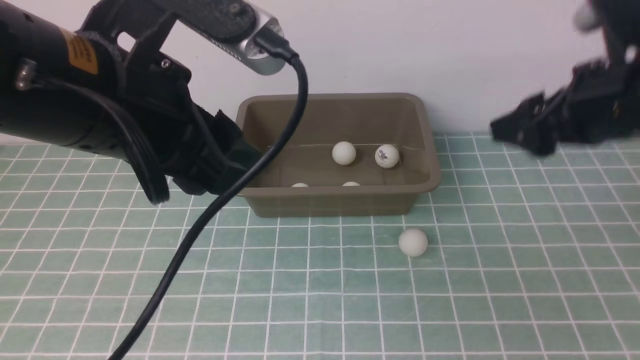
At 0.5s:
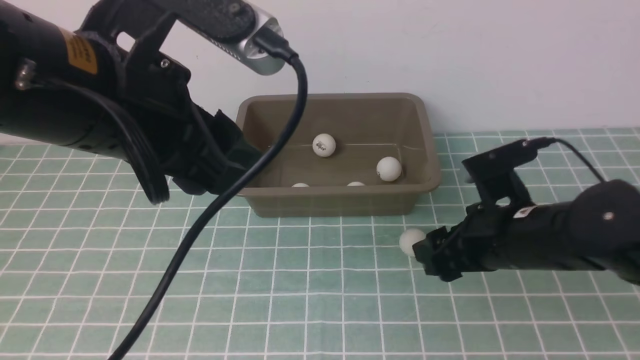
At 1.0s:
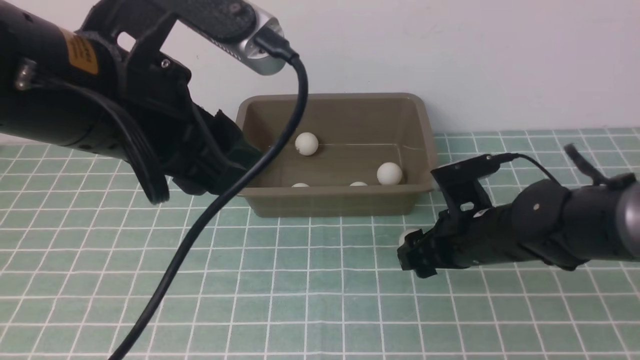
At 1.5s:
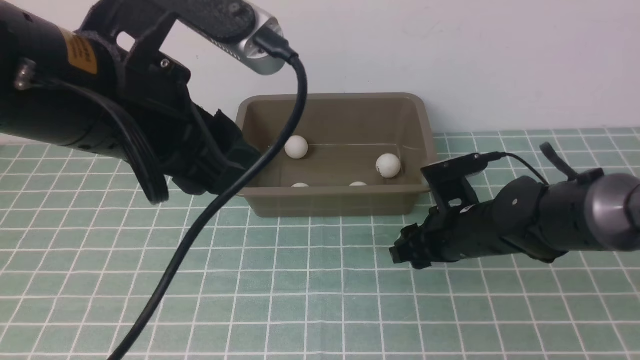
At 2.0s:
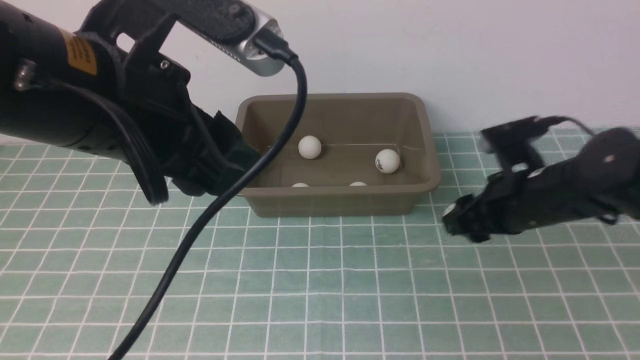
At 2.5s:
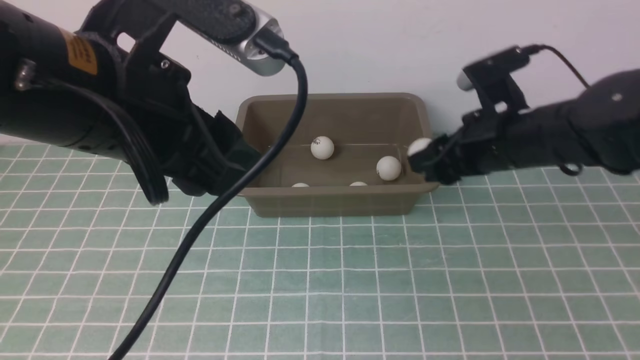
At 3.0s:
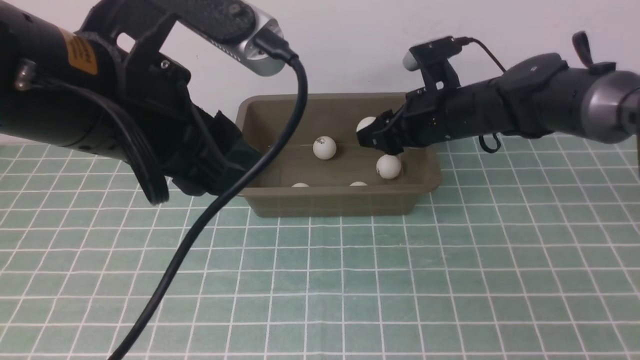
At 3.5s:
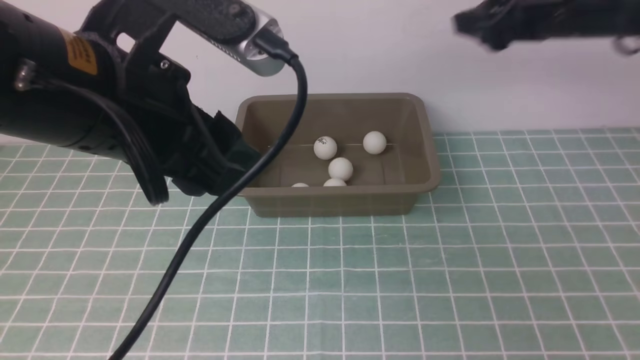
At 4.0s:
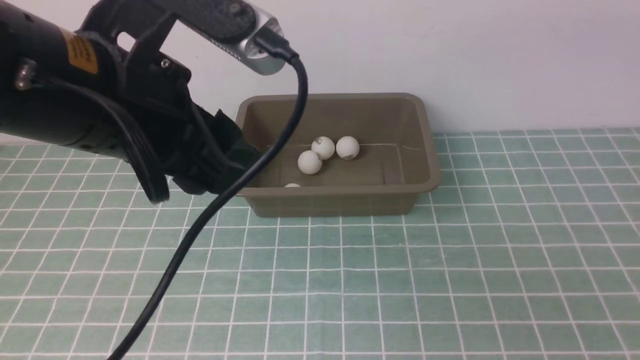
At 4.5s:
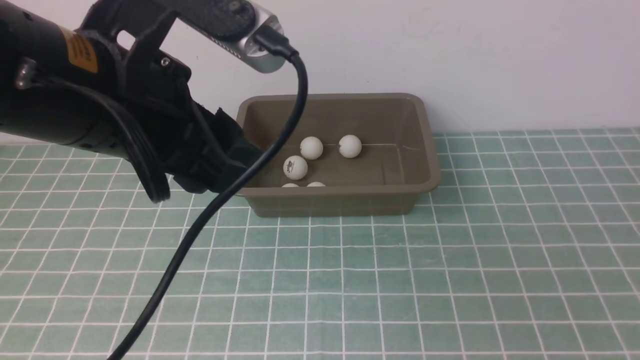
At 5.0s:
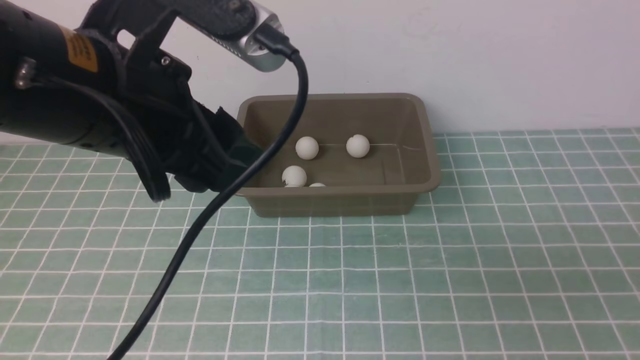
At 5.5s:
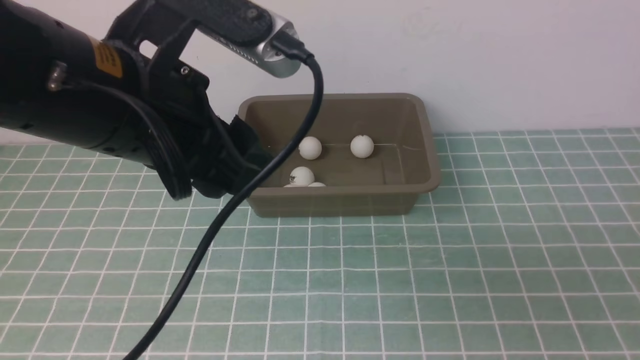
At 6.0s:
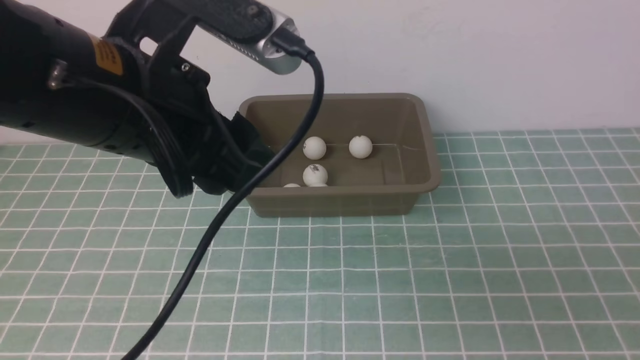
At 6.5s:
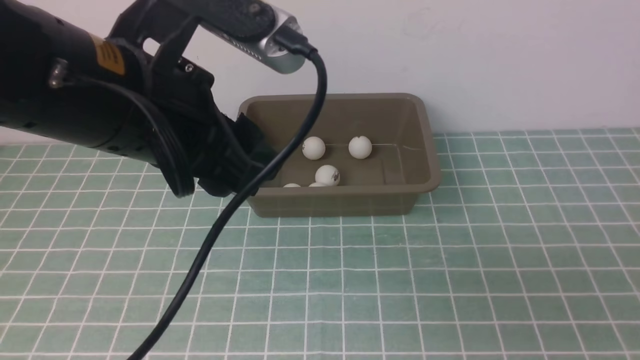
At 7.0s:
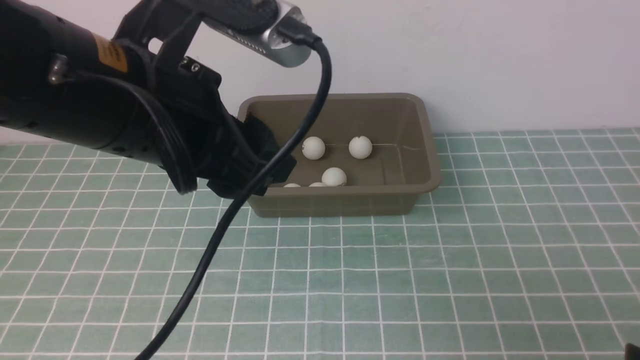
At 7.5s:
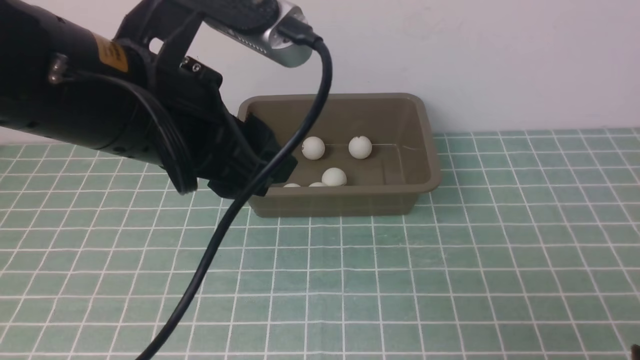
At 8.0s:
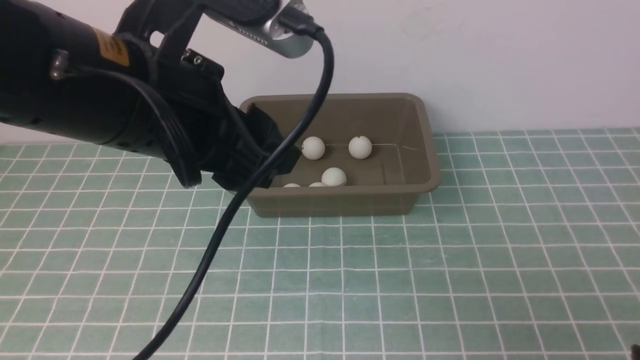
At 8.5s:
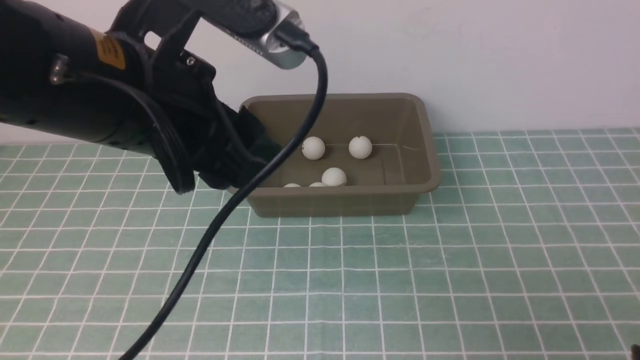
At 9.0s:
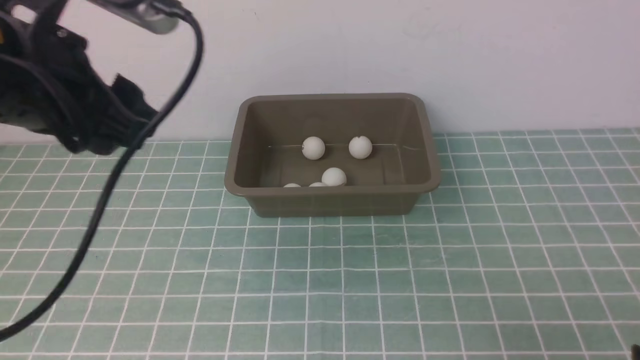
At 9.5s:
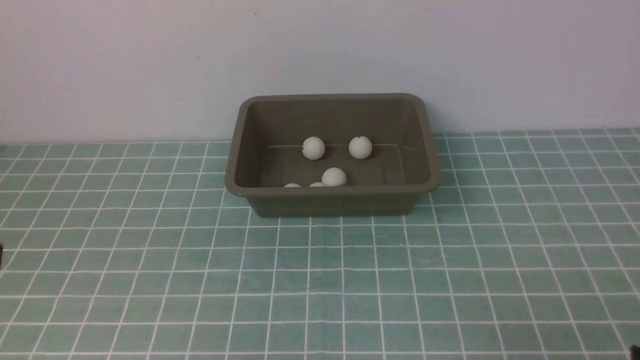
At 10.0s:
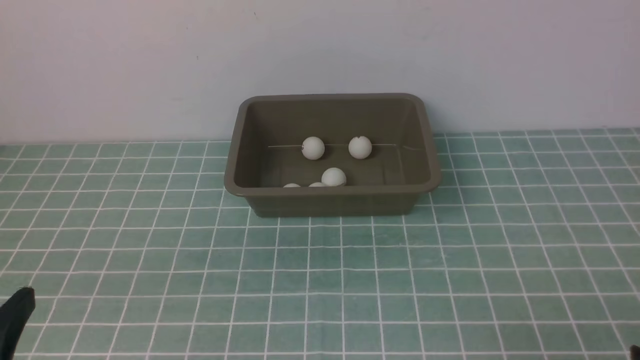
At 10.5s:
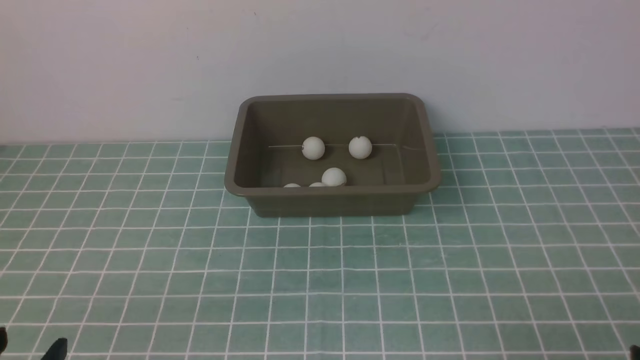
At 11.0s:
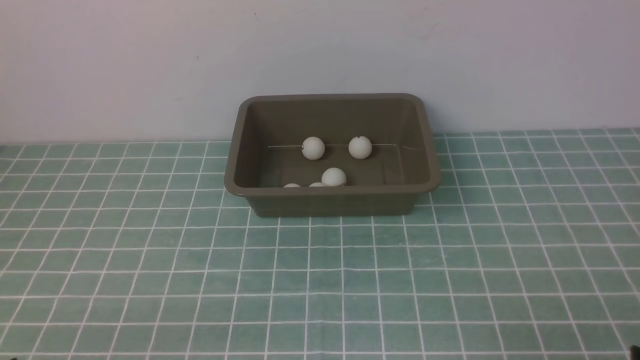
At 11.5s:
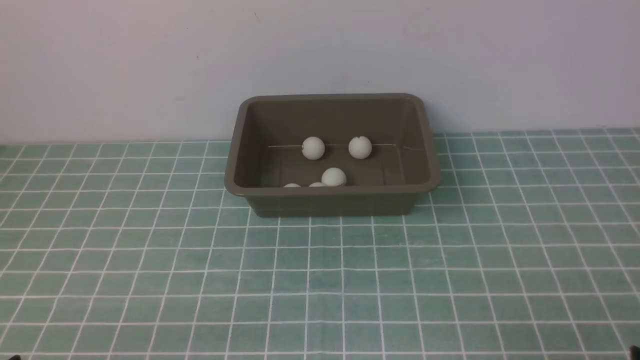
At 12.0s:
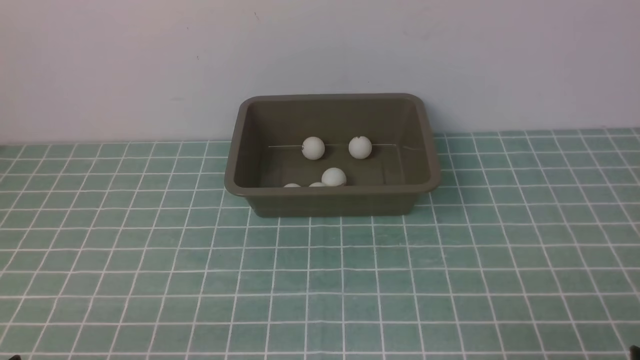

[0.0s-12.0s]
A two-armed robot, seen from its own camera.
Step, 0.0s to 1.5s: use the right arm to clamp the table tennis ball closest to it.
Step, 2.0s to 3.0s: use the right arm to put the table tennis ball into the box.
0.0s to 2.0s: The right gripper travels forward by roughly 5 cm, travels downward and back again, about 10 cm each way, and closes its fingers.
2.0s to 4.0s: The right gripper heads upward, backward and to the right, covering about 30 cm.
4.0s to 6.0s: The right gripper heads downward and backward, covering roughly 20 cm.
6.0s to 8.0s: The right gripper goes roughly 5 cm downward.
8.0s to 10.0s: The left gripper heads backward, to the left and downward, covering roughly 25 cm.
10.0s to 12.0s: The left gripper moves downward, roughly 10 cm.

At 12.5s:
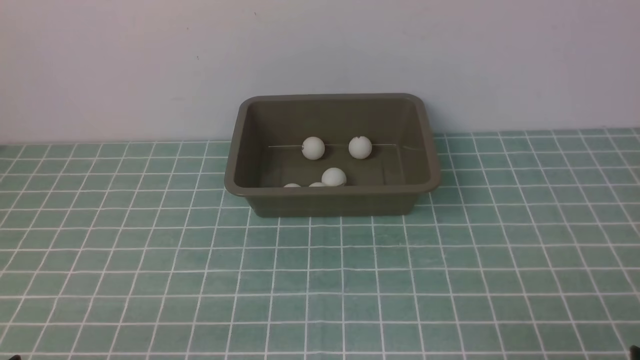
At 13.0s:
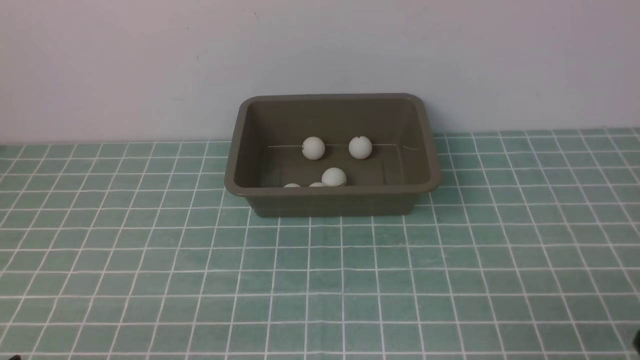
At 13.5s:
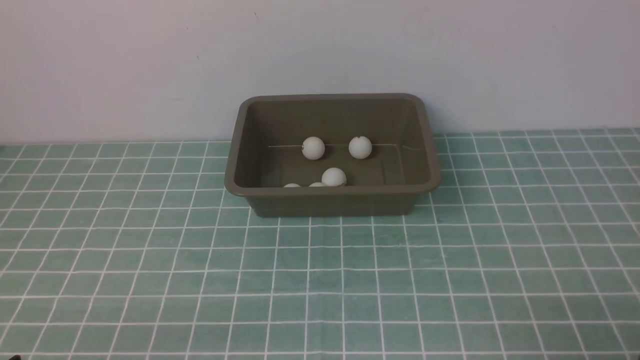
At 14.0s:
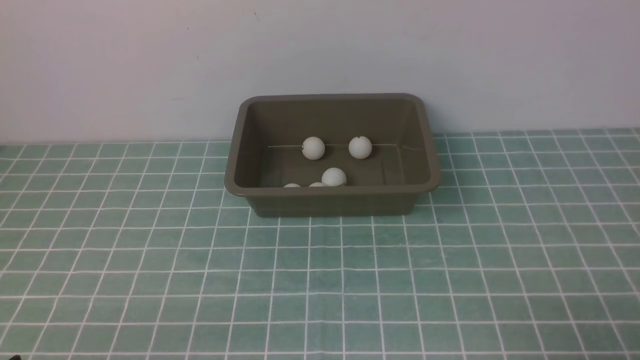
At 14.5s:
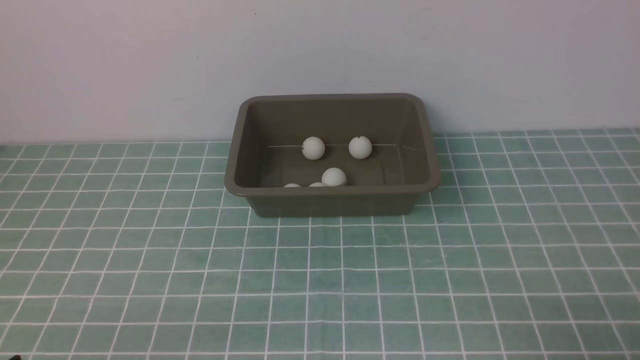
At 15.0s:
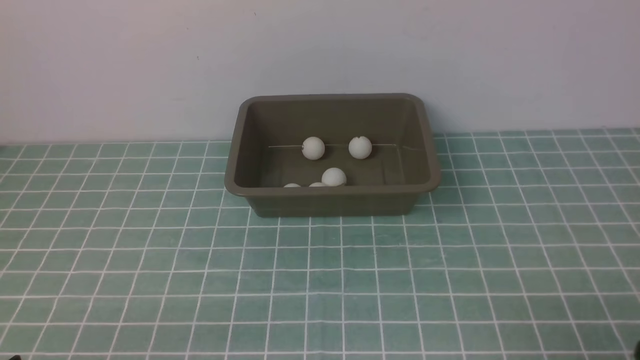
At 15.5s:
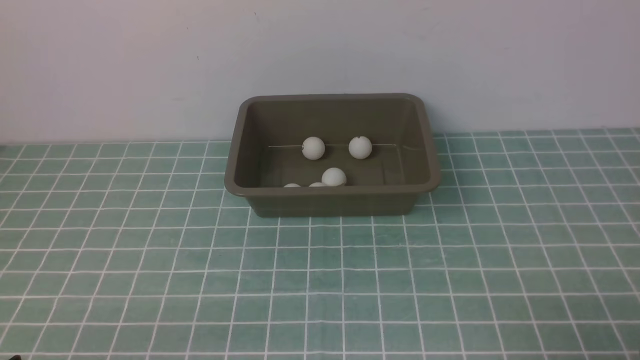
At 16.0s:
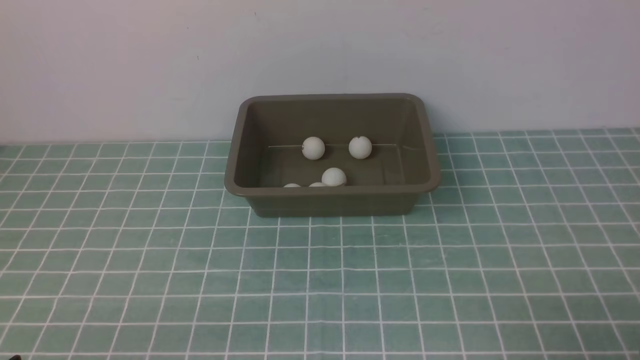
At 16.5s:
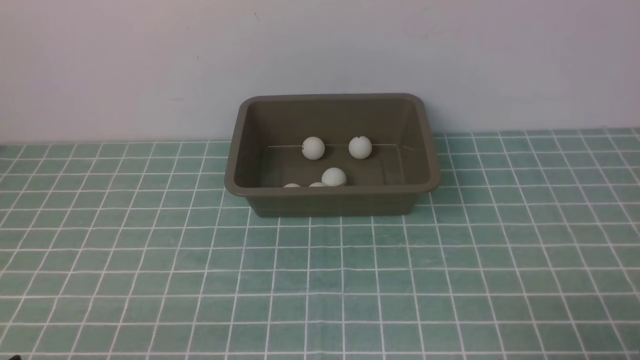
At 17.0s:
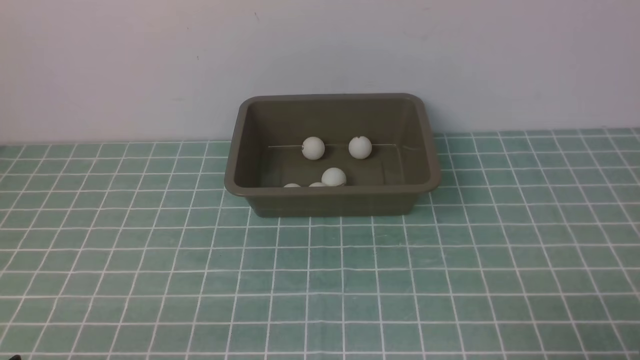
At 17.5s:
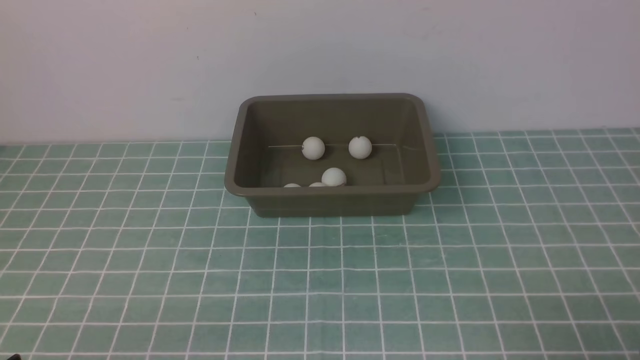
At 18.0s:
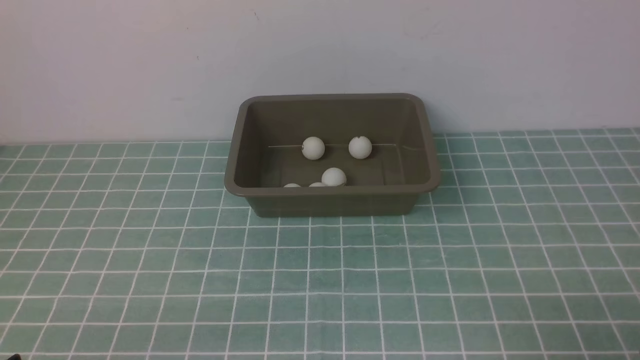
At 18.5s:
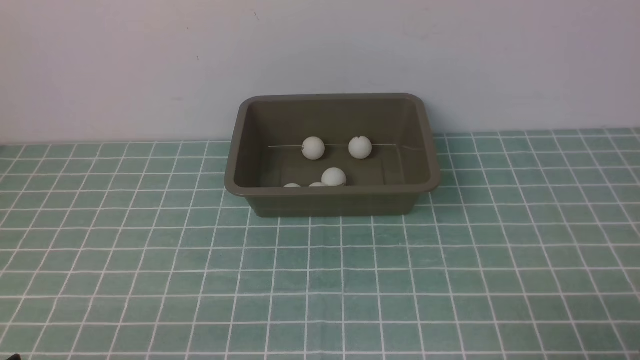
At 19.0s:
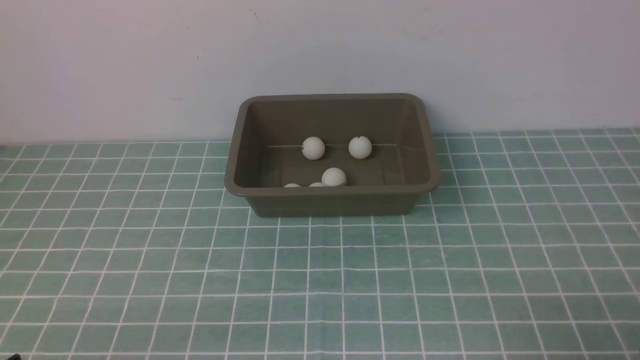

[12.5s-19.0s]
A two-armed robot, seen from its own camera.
14.5s to 19.0s: Both grippers stay about where they are.

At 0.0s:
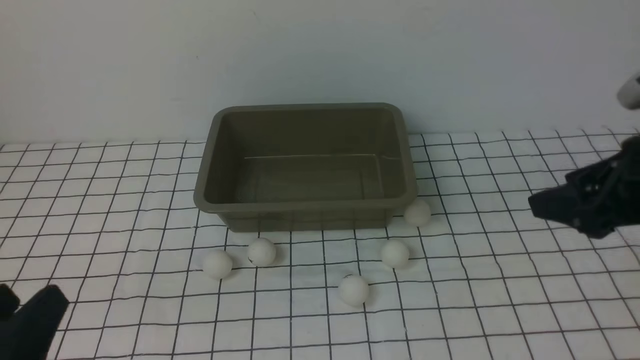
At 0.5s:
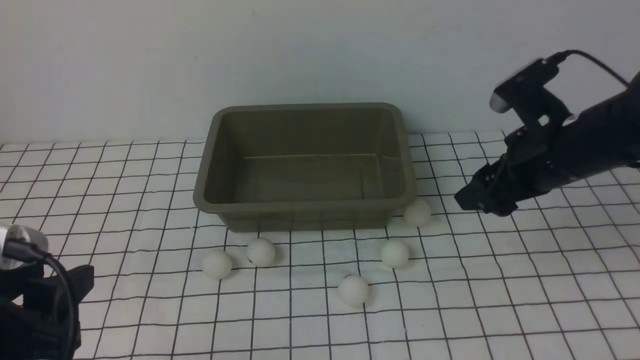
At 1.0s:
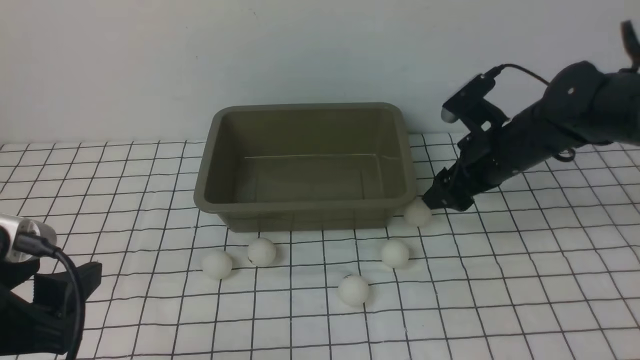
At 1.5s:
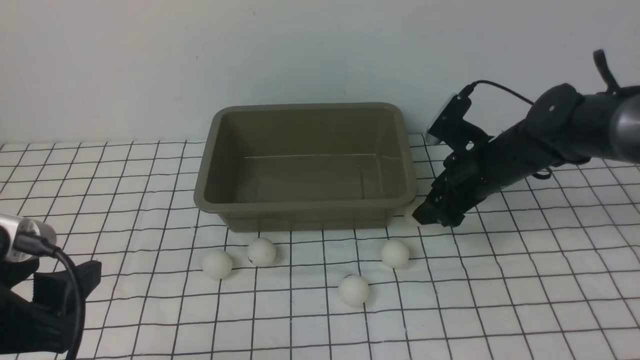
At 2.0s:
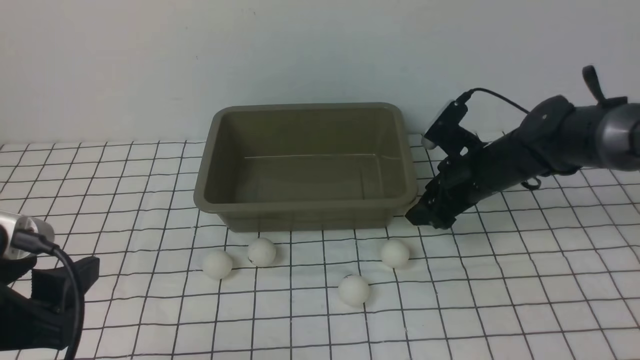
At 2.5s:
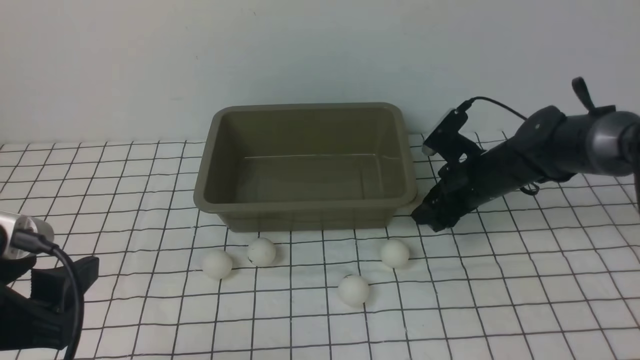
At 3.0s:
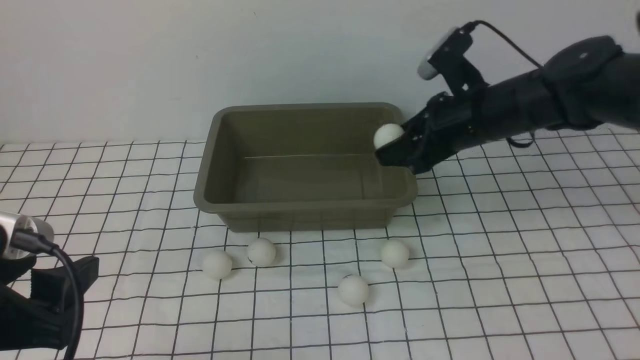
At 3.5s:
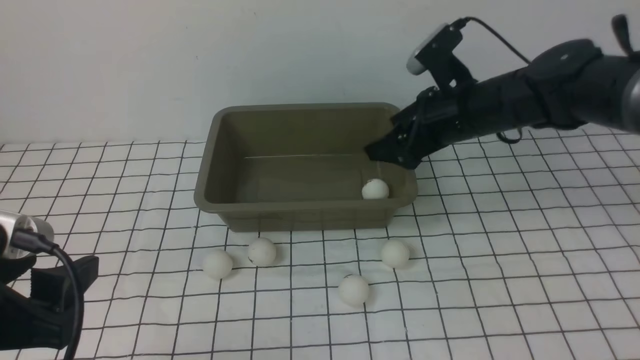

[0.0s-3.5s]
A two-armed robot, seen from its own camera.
Step, 0.0s to 2.5s: use the right arm to clamp the table tennis ball closest to it.
Step, 3.0s to 3.5s: use the right arm to put the table tennis ball into the box.
0.0s to 2.0s: The left gripper heads forward, covering approximately 5 cm, and opens; the right gripper goes about 25 cm forward, downward and to the left.
2.0s to 3.5s: The right gripper is displaced upward by roughly 10 cm, and closes, then opens again.
